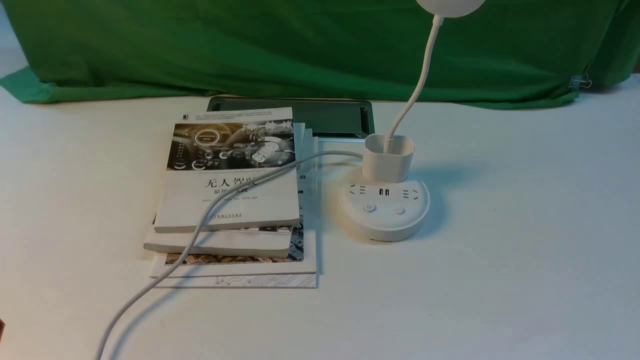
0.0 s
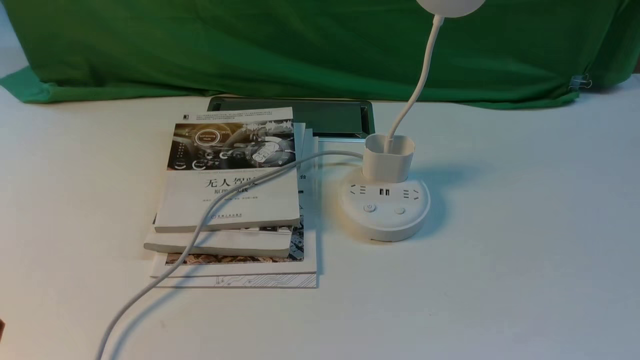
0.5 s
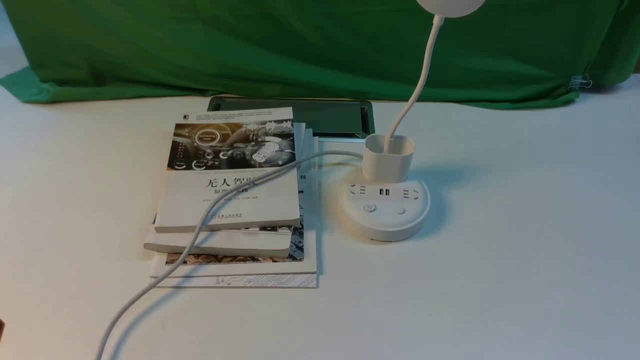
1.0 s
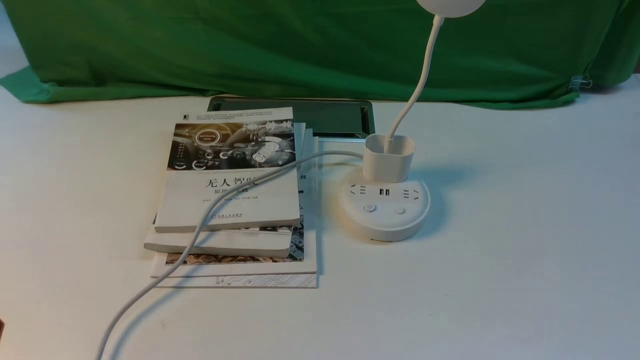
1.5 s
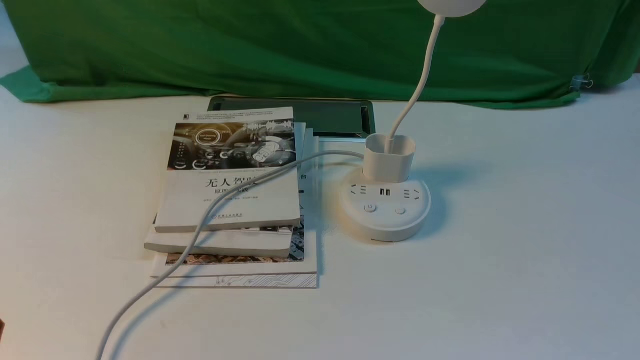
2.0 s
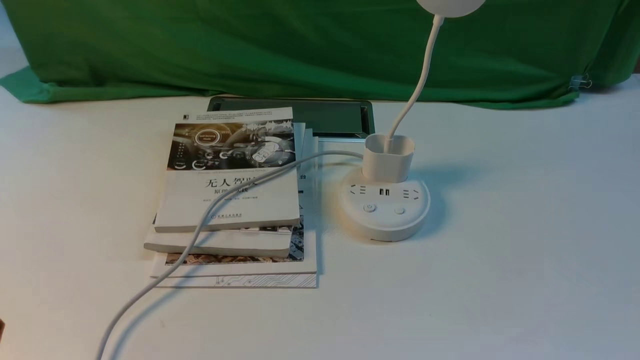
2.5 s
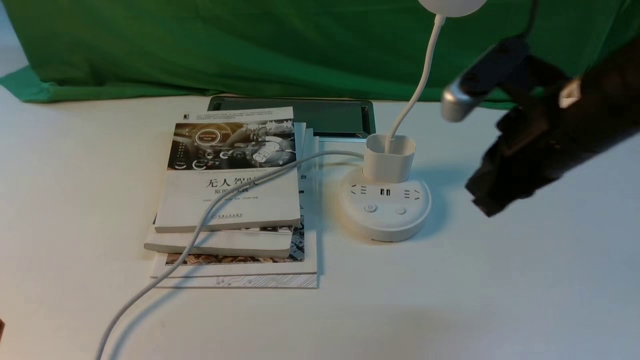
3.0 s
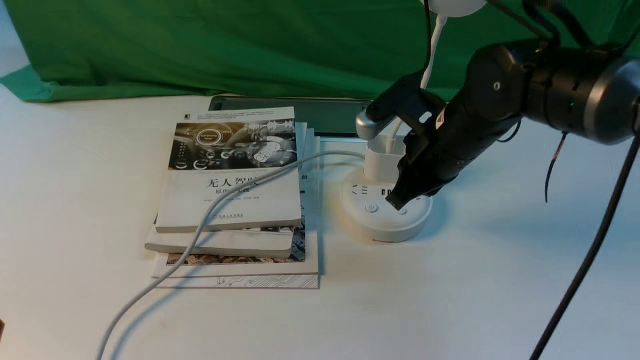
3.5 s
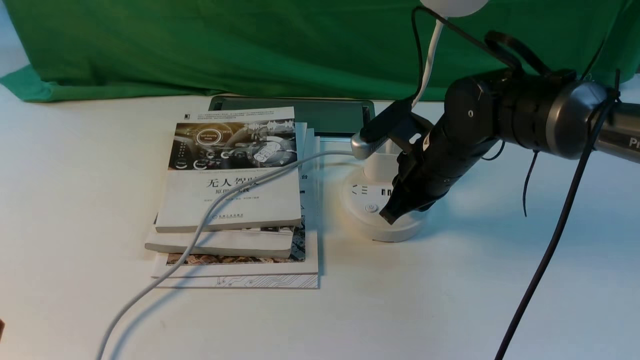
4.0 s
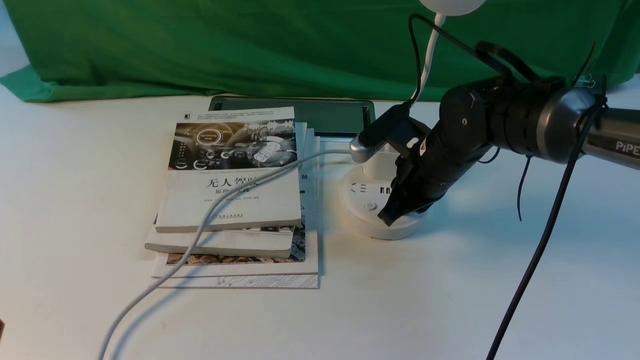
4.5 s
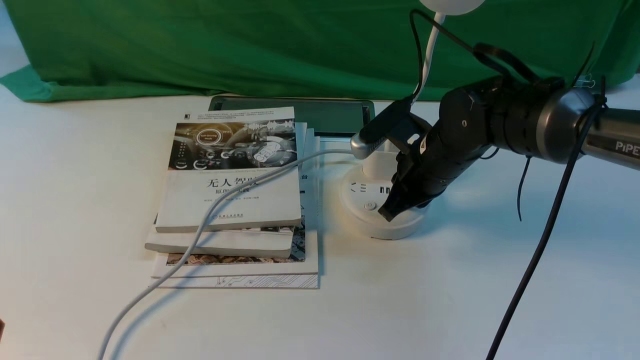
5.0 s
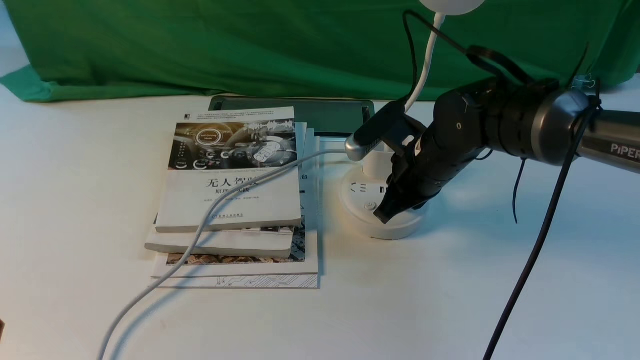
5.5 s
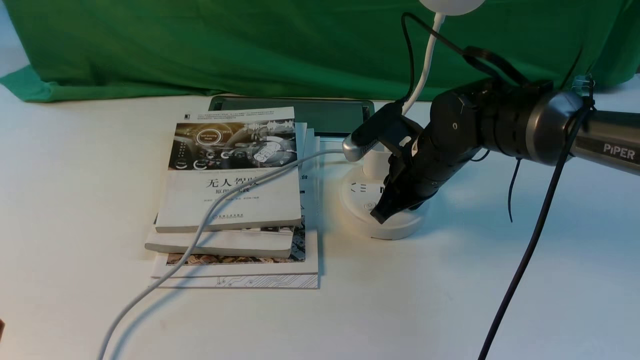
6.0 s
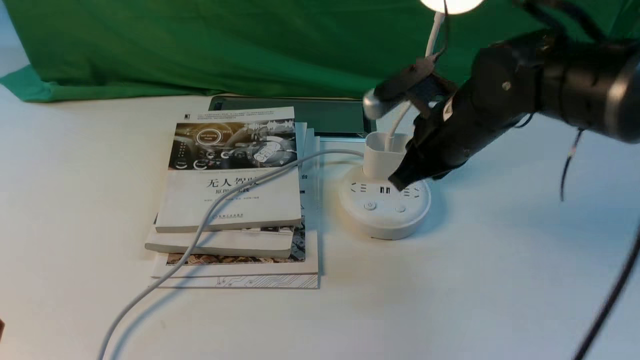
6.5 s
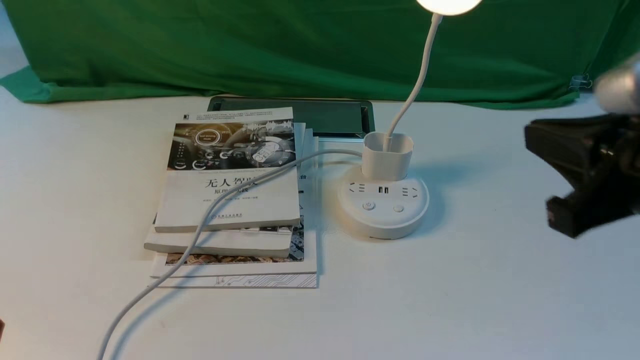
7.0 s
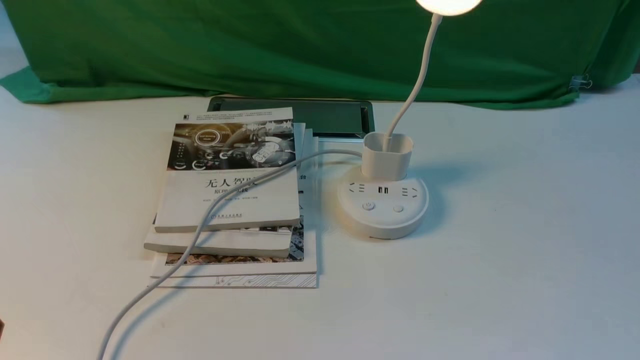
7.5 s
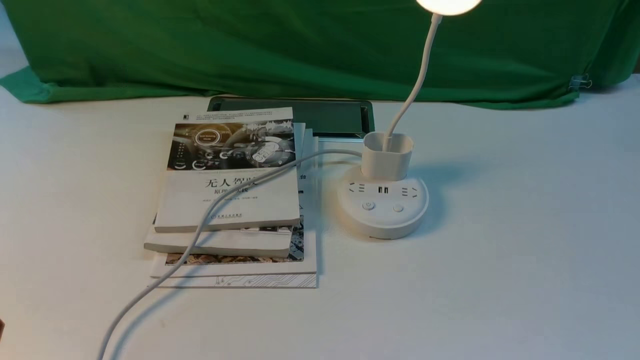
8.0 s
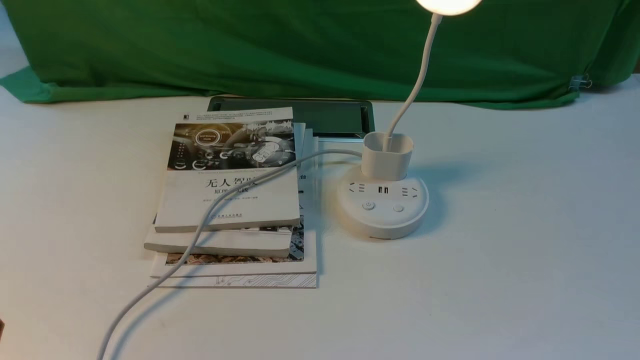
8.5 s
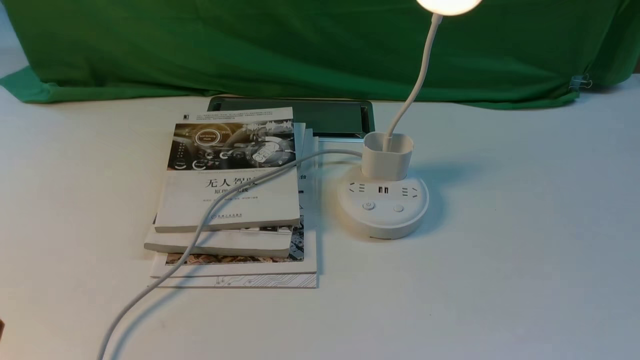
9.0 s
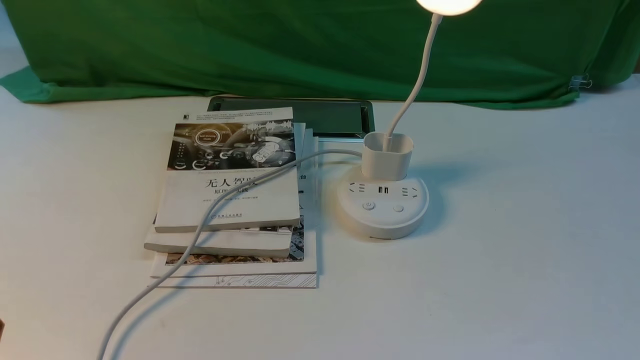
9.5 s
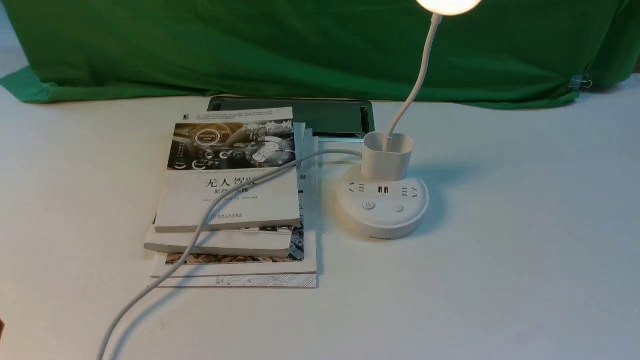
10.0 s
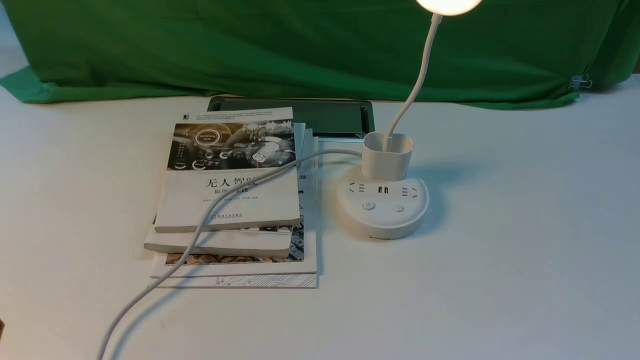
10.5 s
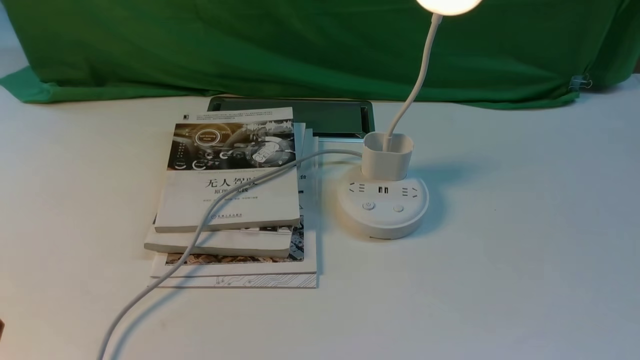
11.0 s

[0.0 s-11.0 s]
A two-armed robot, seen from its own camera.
Step, 0.0 to 6.0 s: use the right arm to press the button switch on the lamp holder.
2.0 to 3.5 s: The right gripper heads forward and to the left, covering approximately 35 cm, and closes up.
3.5 to 5.5 s: The right gripper changes place by roughly 5 cm.
5.5 to 7.5 s: The right gripper goes roughly 35 cm backward and to the right.

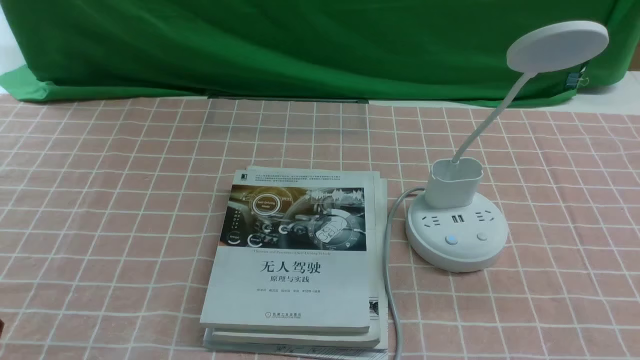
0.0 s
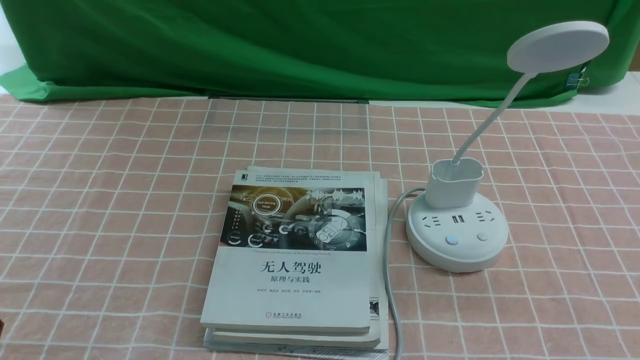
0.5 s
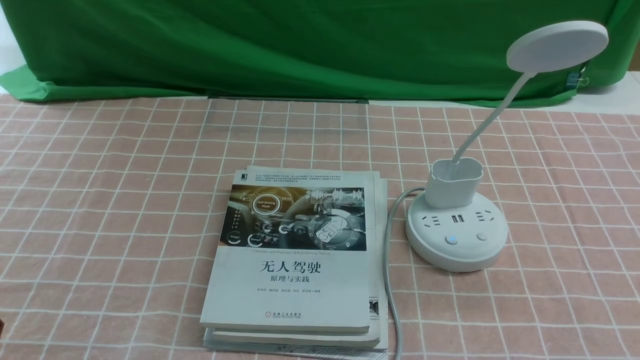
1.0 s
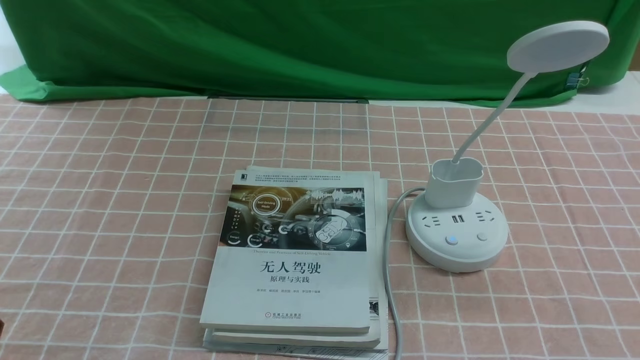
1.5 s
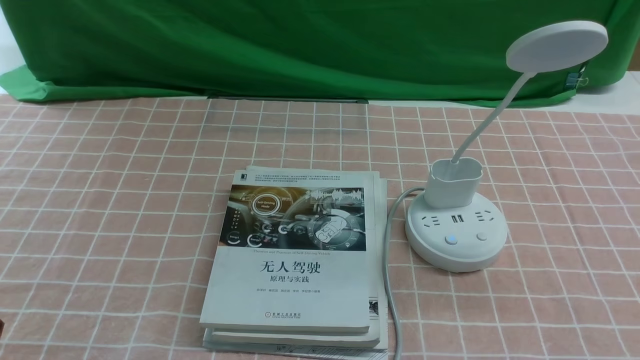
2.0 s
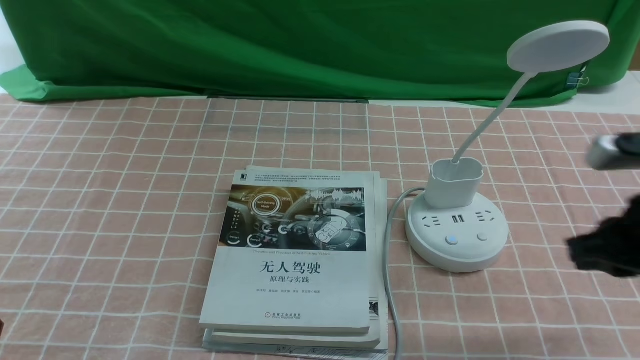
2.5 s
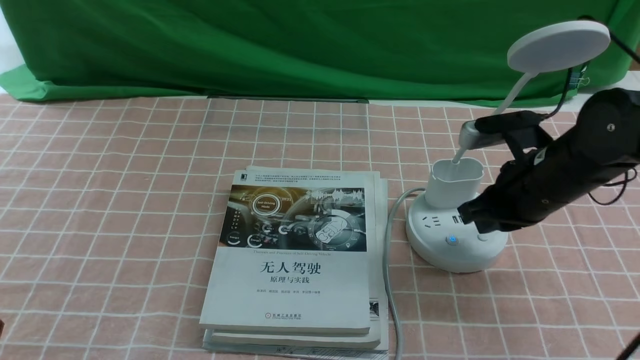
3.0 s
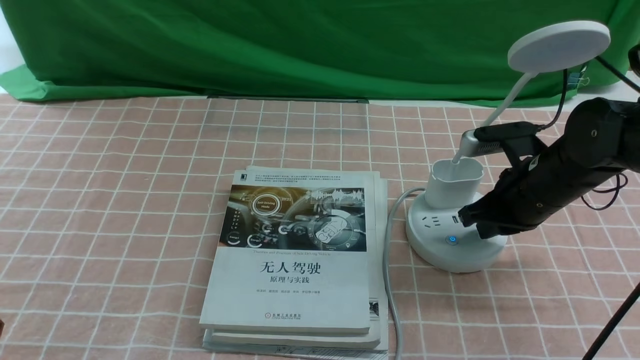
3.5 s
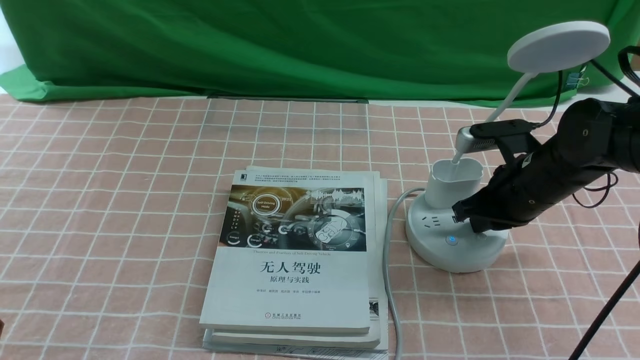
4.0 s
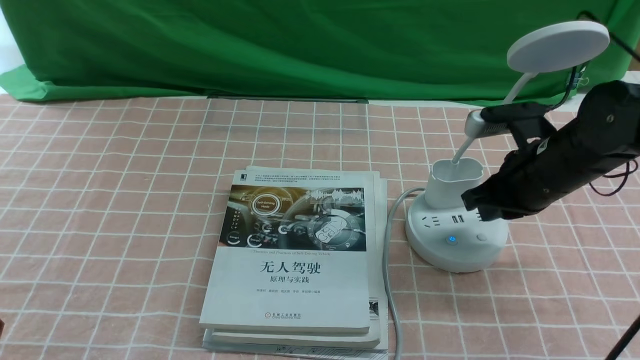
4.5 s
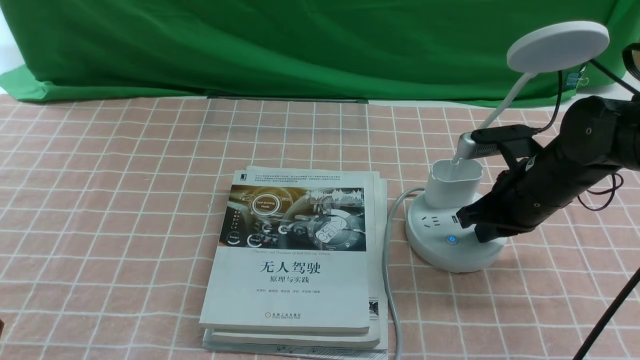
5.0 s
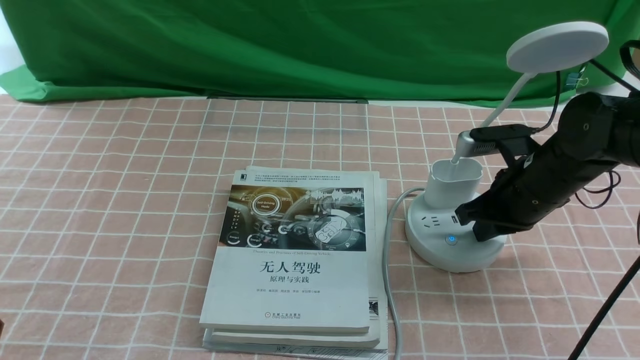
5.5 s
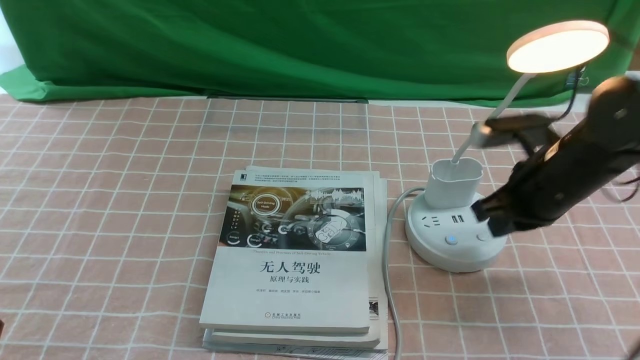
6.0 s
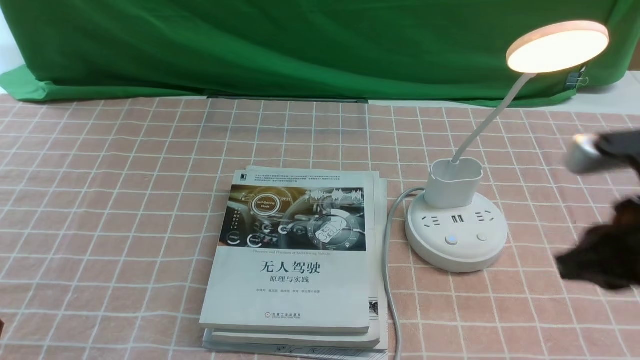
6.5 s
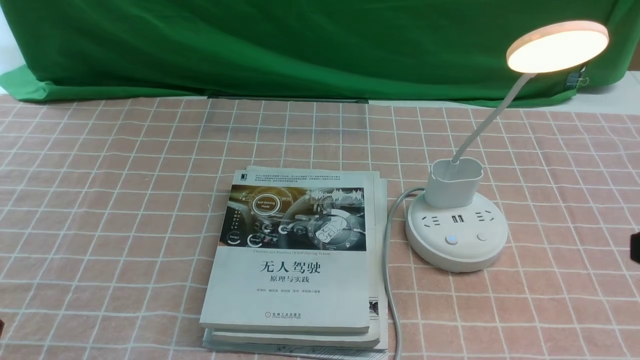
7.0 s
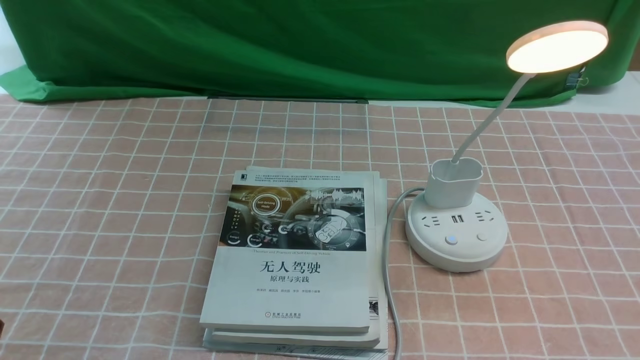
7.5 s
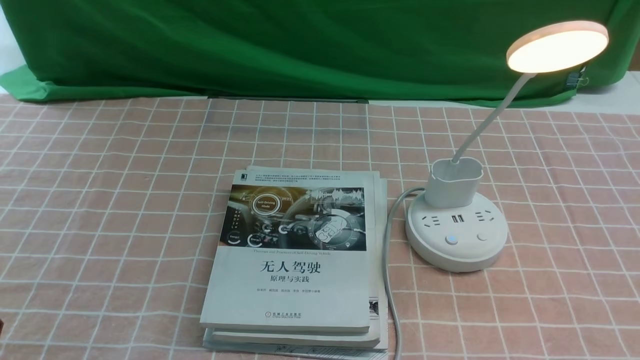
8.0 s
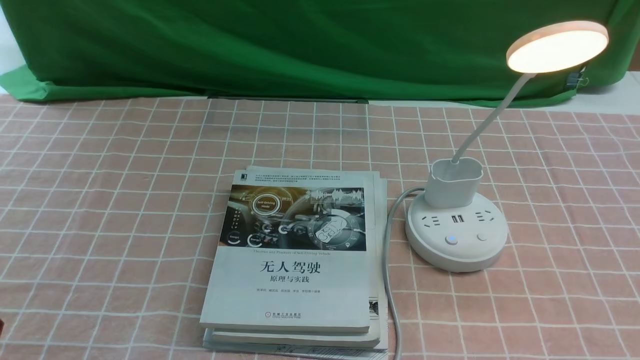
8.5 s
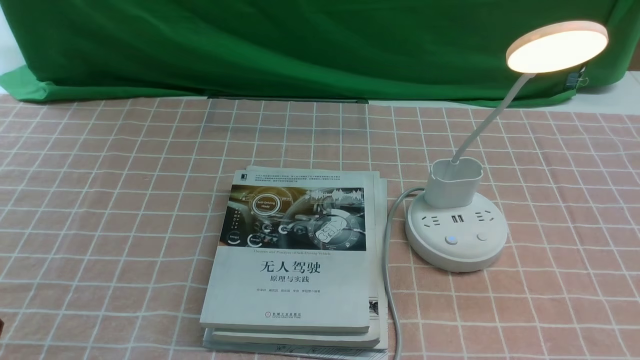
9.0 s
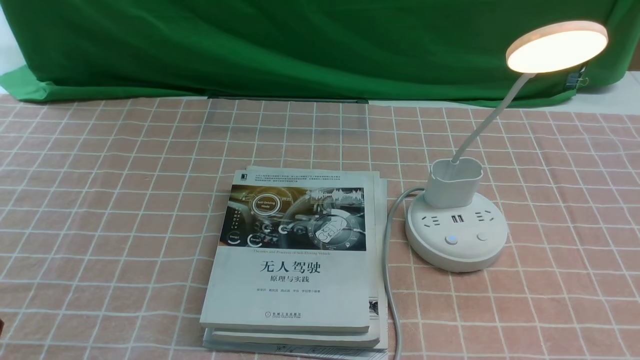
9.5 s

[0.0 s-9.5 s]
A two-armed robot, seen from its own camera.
Step, 0.0 to 6.0 s: use the right arm to press the button switch on the lamp holder.
2.0 to 4.0 s: The right gripper heads forward, covering about 25 cm.
4.0 to 5.5 s: The grippers move only a little.
5.5 to 7.5 s: The right gripper travels backward and upward by roughly 30 cm.
